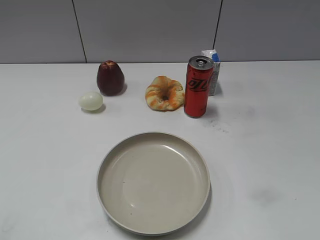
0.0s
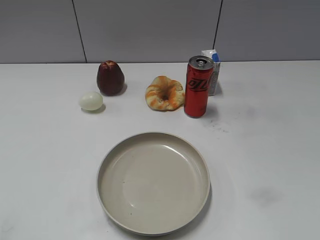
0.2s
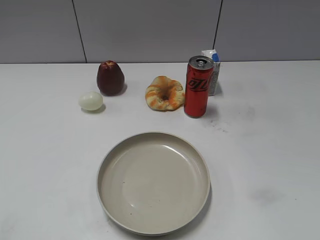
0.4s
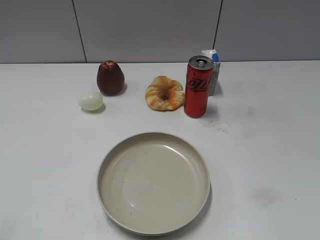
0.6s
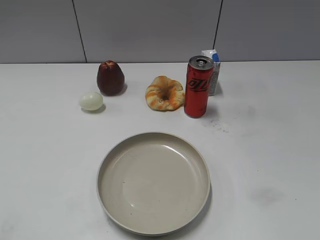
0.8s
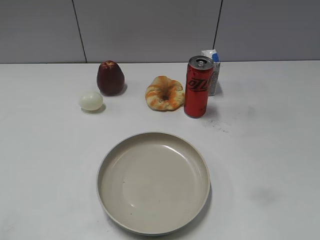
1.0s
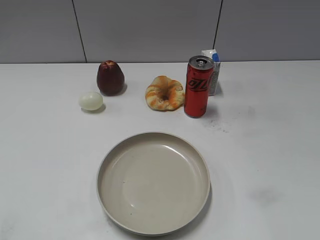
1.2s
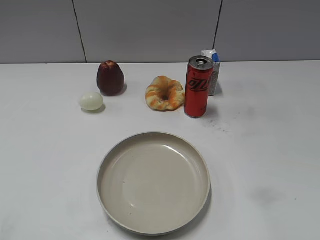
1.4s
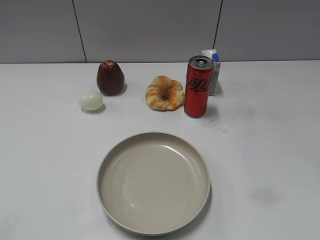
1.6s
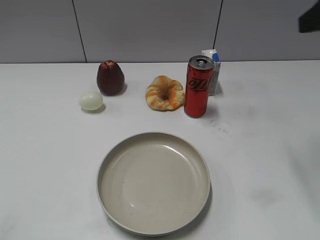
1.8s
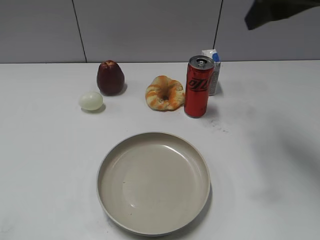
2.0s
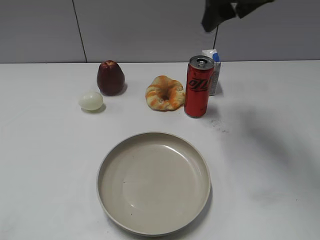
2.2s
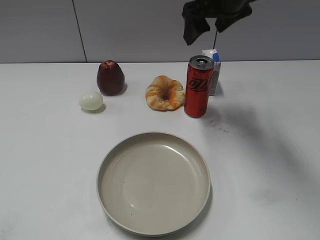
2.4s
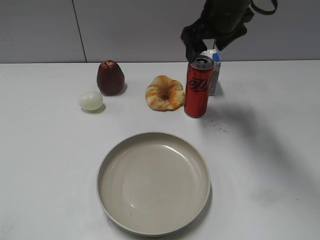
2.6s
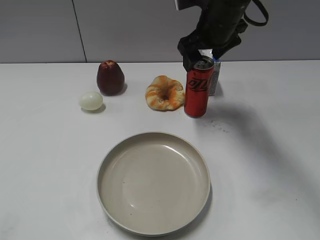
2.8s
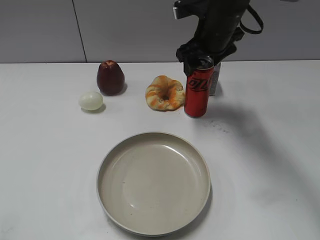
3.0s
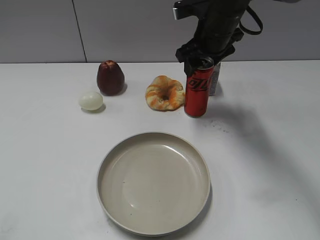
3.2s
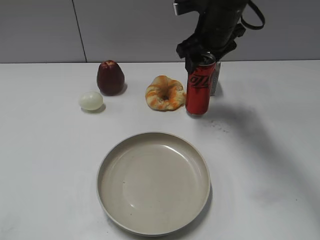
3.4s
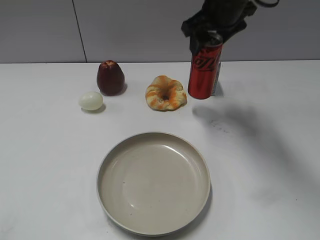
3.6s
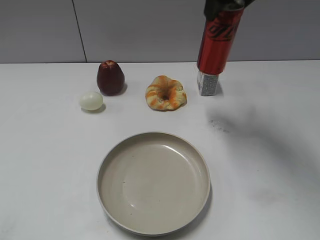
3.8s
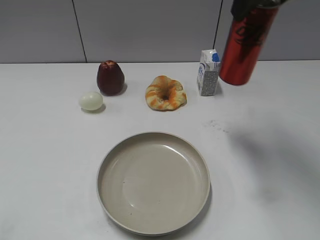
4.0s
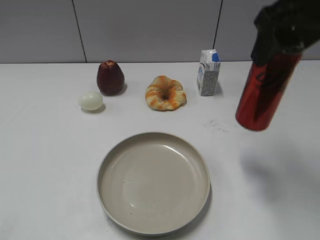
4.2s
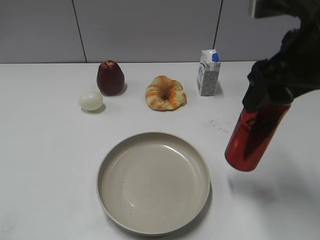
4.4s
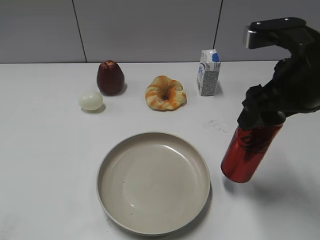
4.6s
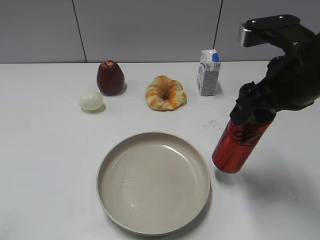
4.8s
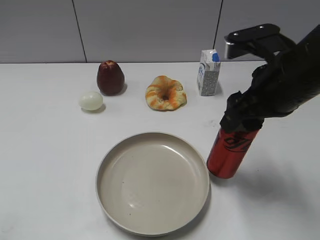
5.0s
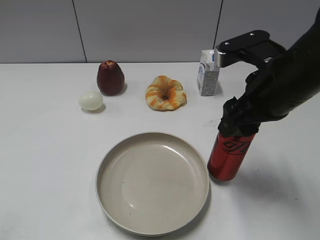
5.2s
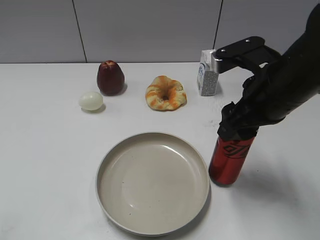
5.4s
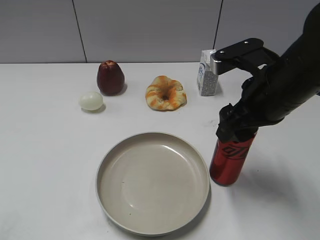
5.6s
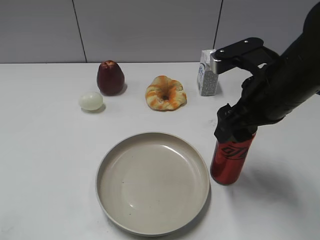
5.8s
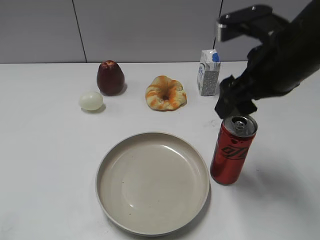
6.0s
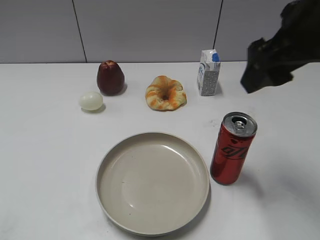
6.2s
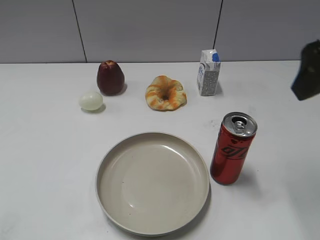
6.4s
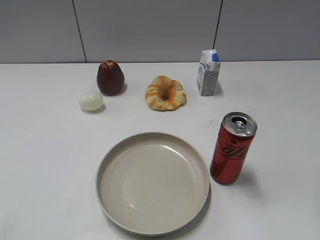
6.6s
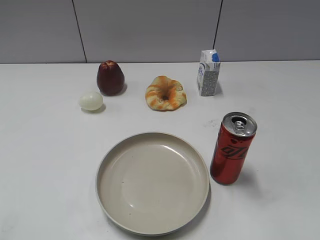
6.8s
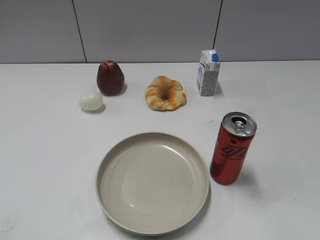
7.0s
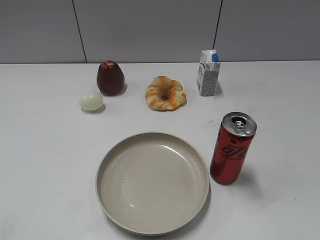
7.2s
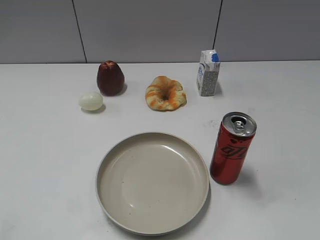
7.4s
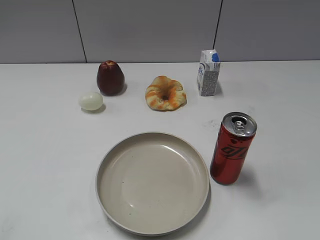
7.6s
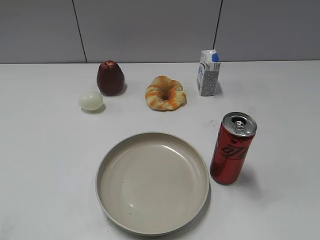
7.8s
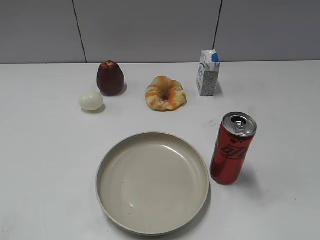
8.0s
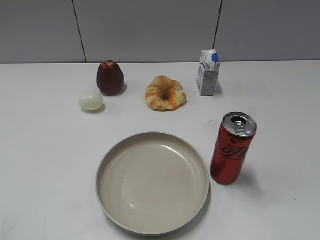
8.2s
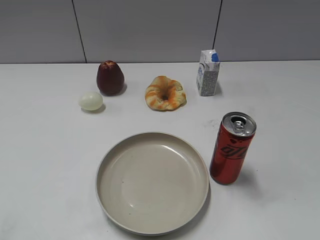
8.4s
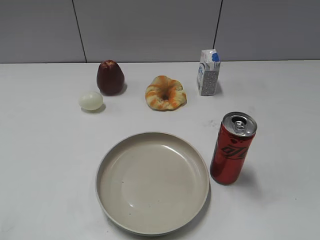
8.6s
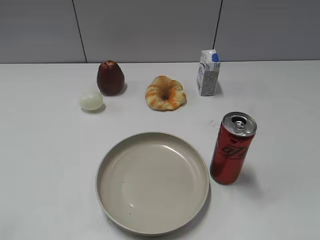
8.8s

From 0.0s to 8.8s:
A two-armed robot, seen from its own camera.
Step, from 0.8s to 3.2s: Grasp the cola with right gripper.
Step, from 3.4s to 6.0s: Place the cola on the table with right gripper.
From 1.4s to 3.0s: The right gripper travels forward and to the left by some 40 cm.
From 3.0s to 4.4s: The right gripper moves backward, upward and to the right, approximately 20 cm, and closes.
From 4.4s to 5.8s: The right gripper travels downward by roughly 10 cm, and opens.
From 5.8s to 7.4s: The right gripper goes about 25 cm backward and to the right.
